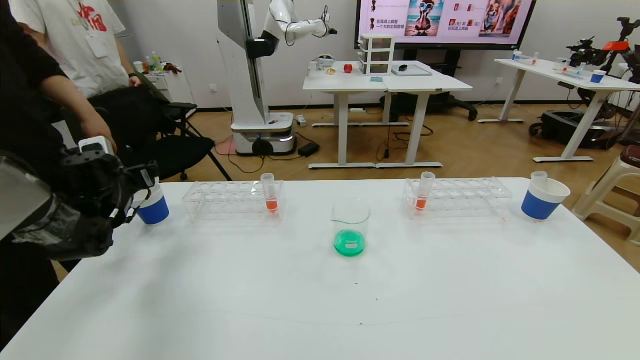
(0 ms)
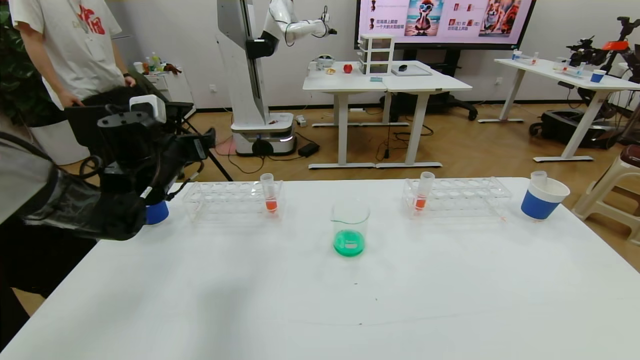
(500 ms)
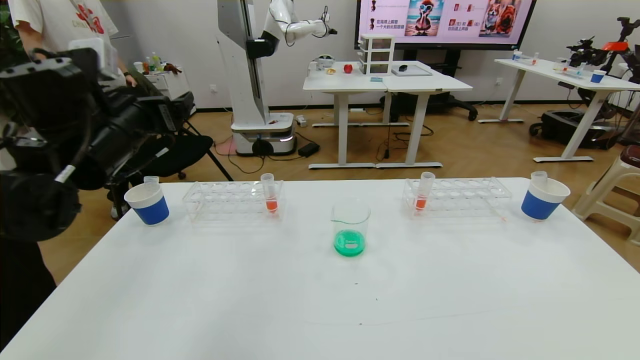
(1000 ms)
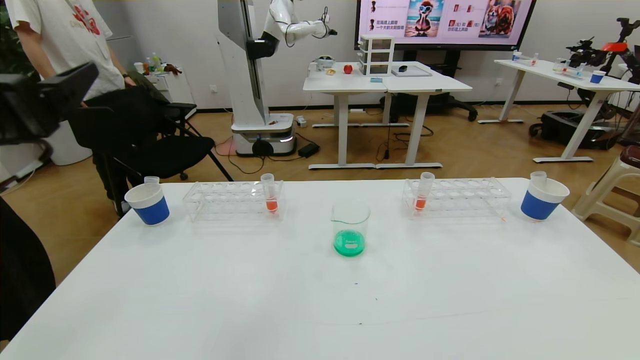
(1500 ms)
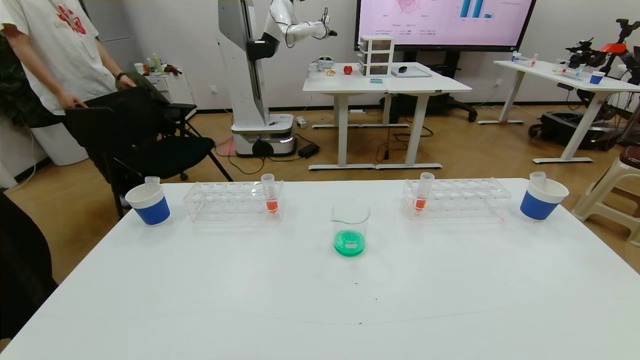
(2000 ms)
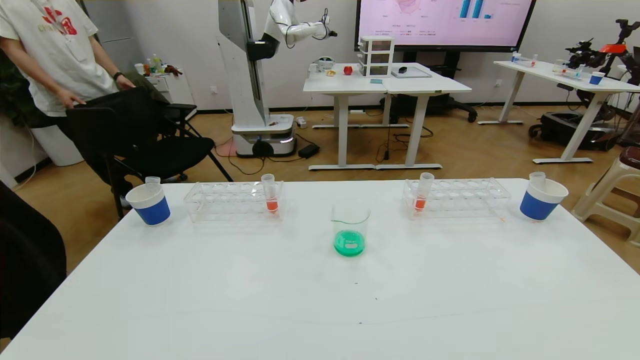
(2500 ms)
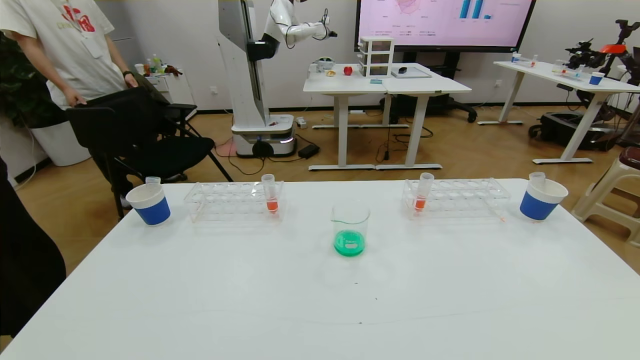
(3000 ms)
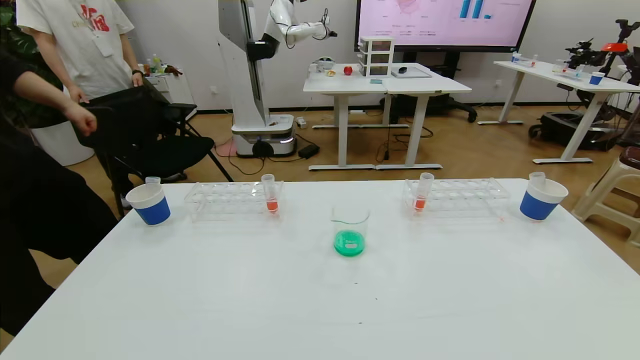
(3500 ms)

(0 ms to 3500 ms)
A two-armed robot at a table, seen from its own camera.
Task of the whole recording: pick up the test tube with yellow pigment and the test tube with blue pigment by grippers and pour them into the beaker.
Step, 0 ms - 3500 ms: Pour the blue reagent into the graduated cylinder and place the test tube into the paper cup.
0 ms - 2000 ms: The left gripper goes about 40 cm backward and upward.
2000 ms - 3500 ms: The left gripper shifts some 20 cm downward.

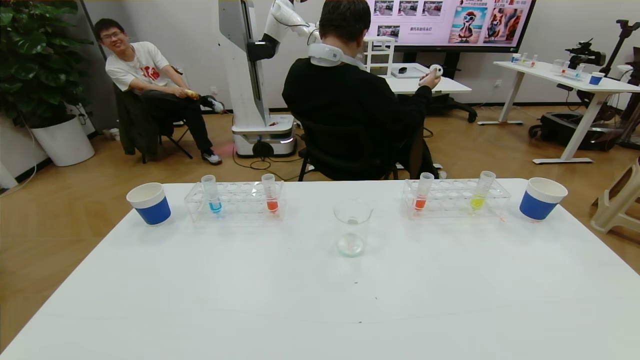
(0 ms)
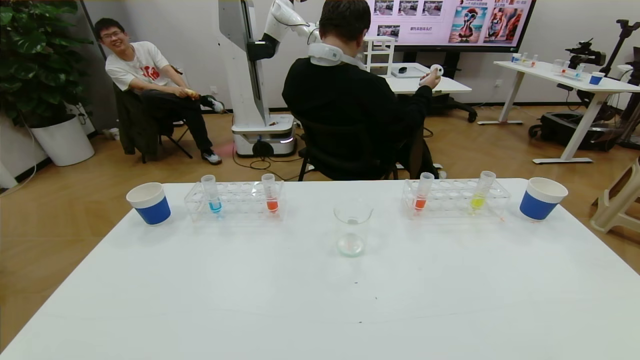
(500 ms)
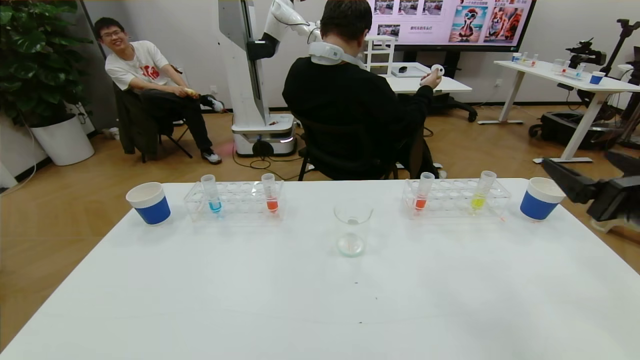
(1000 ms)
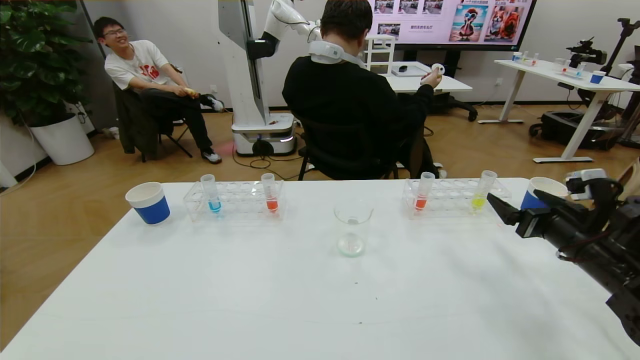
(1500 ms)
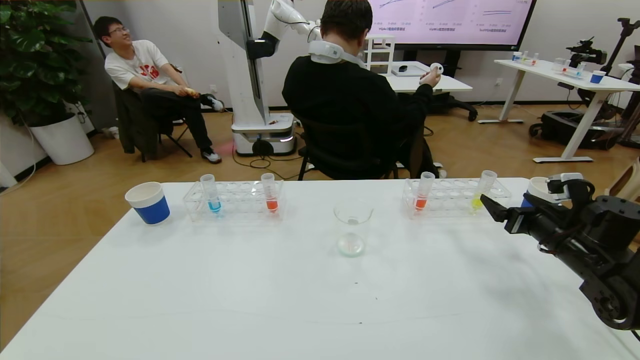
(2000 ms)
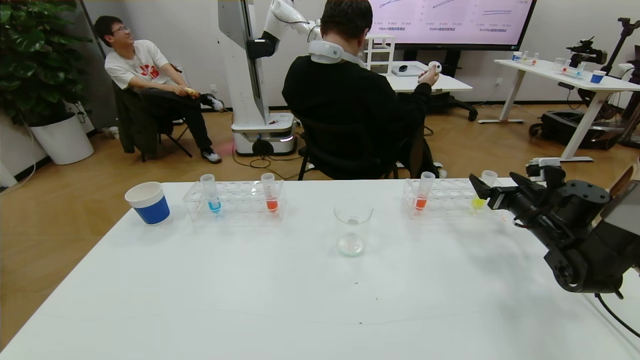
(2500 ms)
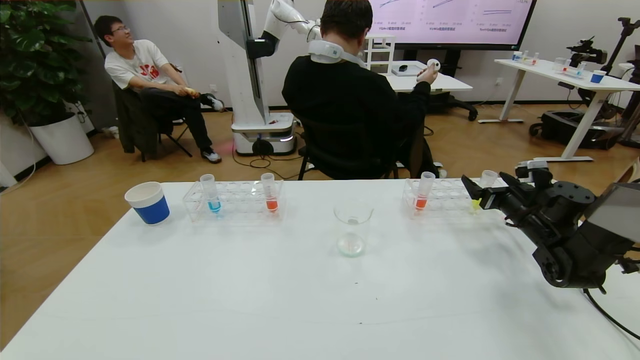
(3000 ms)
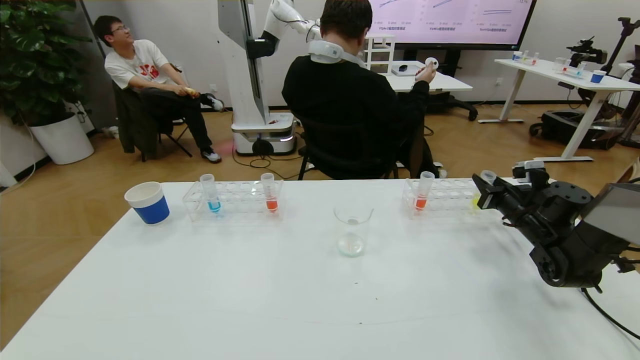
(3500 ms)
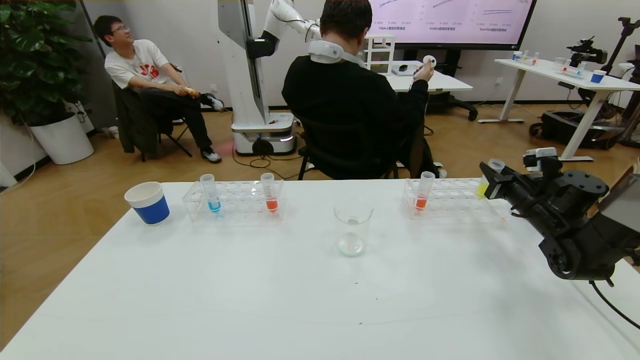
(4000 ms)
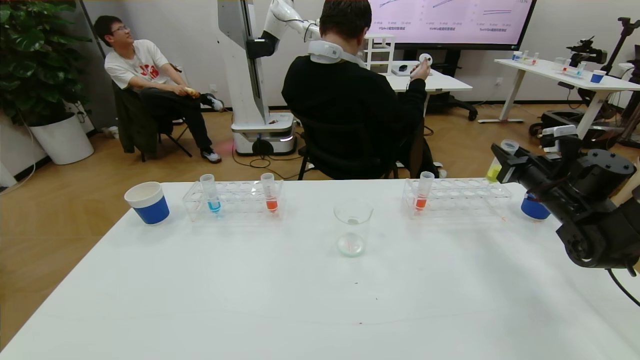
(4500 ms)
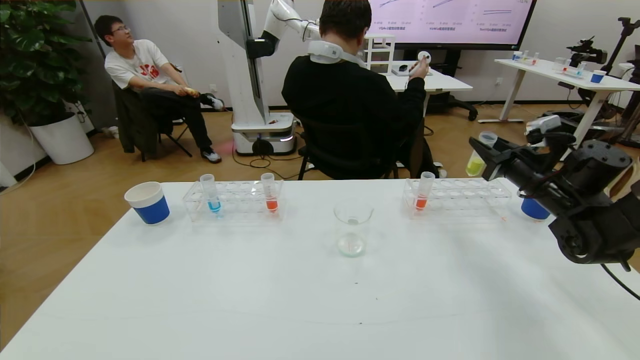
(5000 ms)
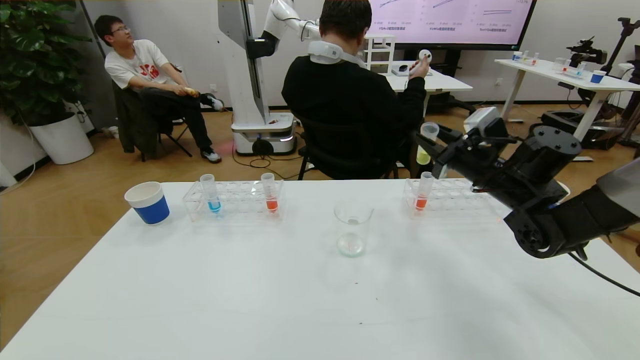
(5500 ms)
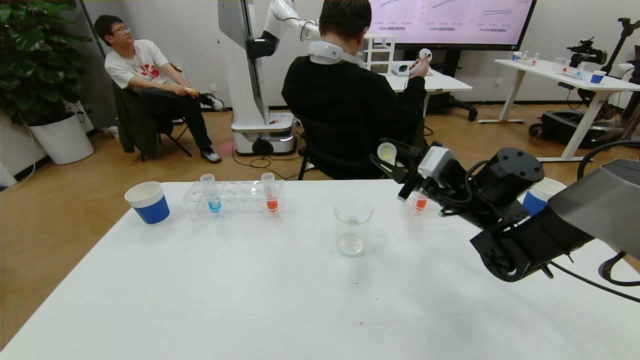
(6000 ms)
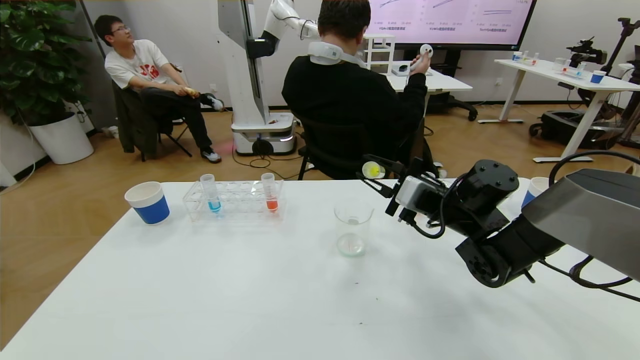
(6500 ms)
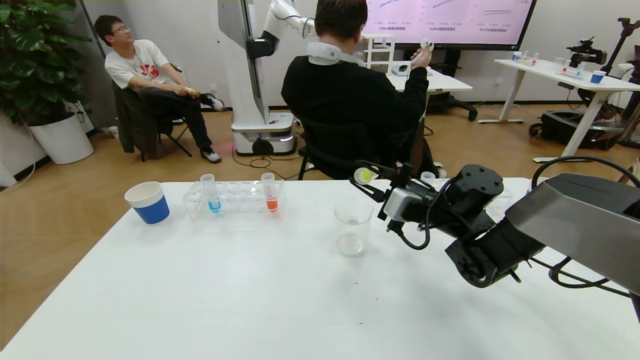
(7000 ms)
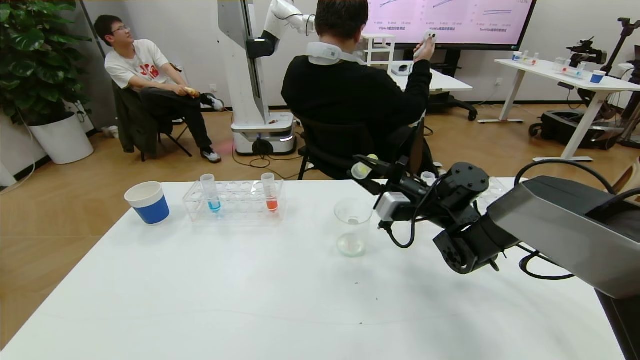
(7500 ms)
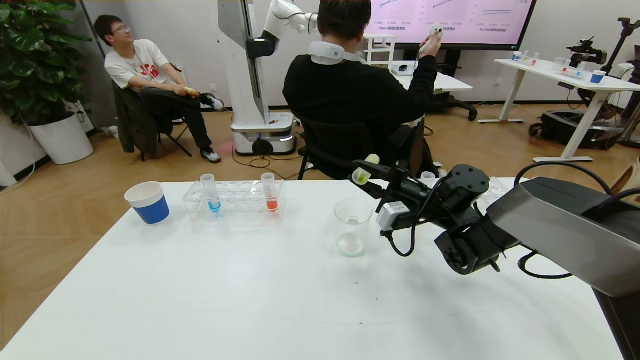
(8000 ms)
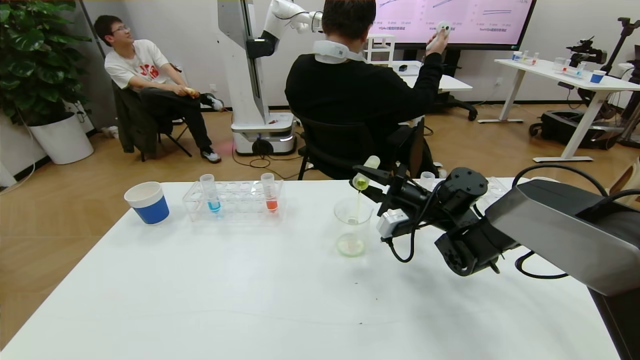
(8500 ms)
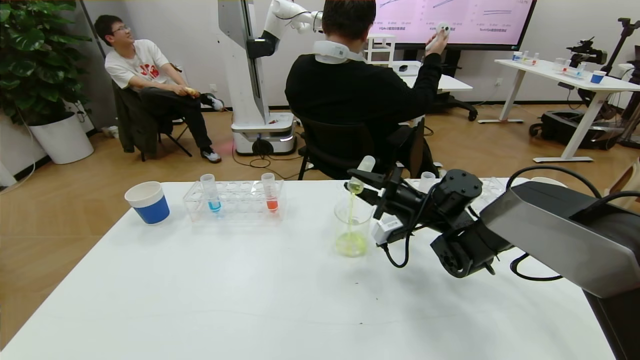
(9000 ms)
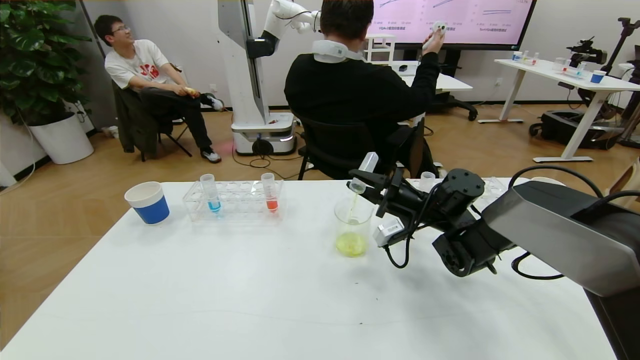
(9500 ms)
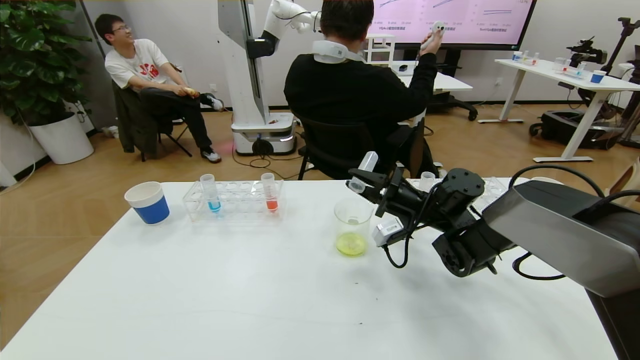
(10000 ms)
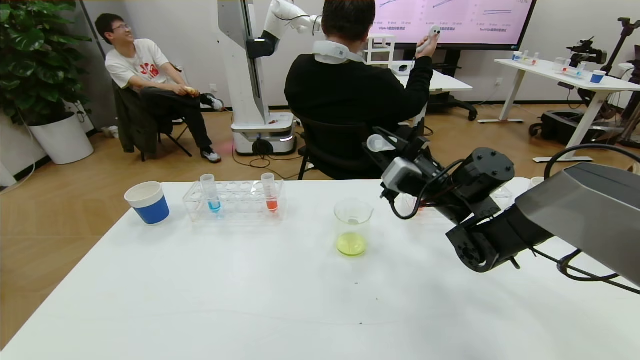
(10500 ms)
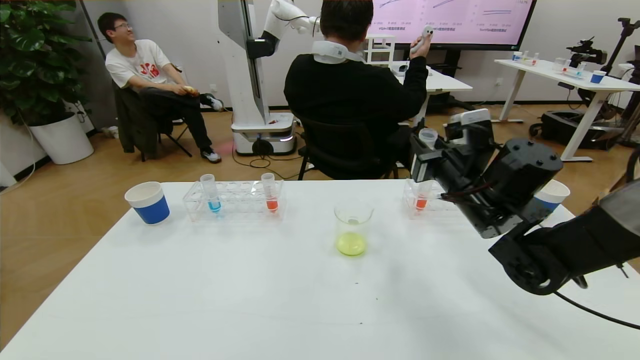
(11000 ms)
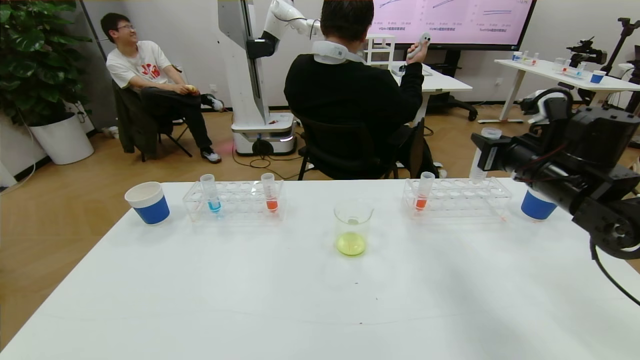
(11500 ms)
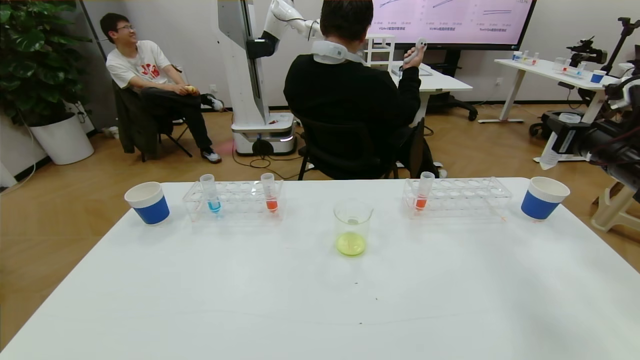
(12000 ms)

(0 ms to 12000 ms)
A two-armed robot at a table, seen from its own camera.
Task of the whole recording: pick up the test tube with yellow pigment and the test tube with blue pigment by grippers and pour them into the beaker.
Step, 0 ms - 3000 ms: Grasp the yellow reagent with the right gripper.
Step, 3500 ms - 10500 ms: Pour the yellow reagent into the graduated cylinder with the right gripper.
0 ms - 2000 ms: The right gripper is displaced forward by roughly 35 cm.
2000 ms - 4000 ms: The right gripper moves forward, roughly 10 cm, and closes its fingers.
4000 ms - 6000 ms: The right gripper travels to the left by approximately 20 cm.
6000 ms - 8000 ms: The right gripper goes about 5 cm downward.
8000 ms - 10000 ms: The grippers stay close to where they were, moving slightly.
10000 ms - 12000 ms: The right gripper moves to the right and upward, roughly 30 cm.

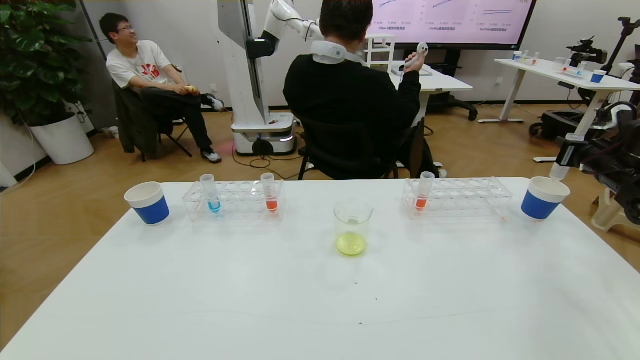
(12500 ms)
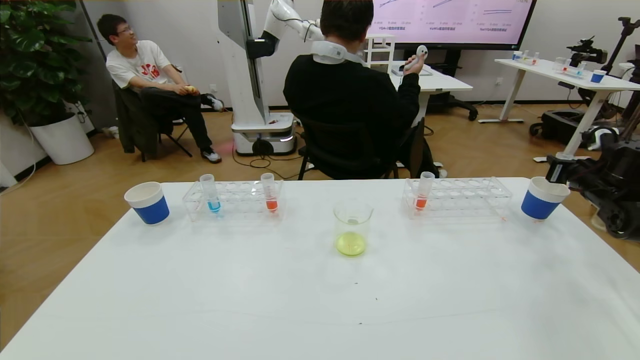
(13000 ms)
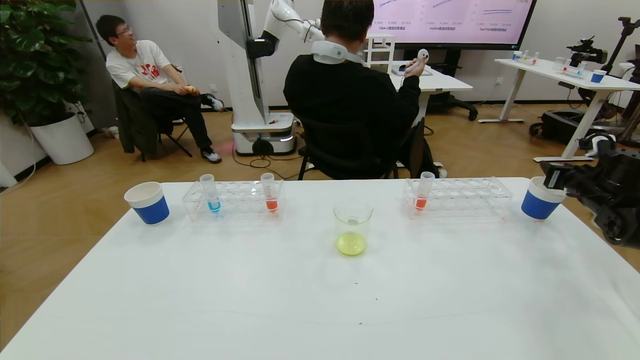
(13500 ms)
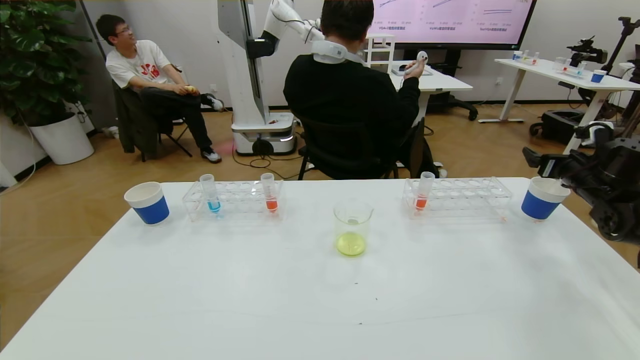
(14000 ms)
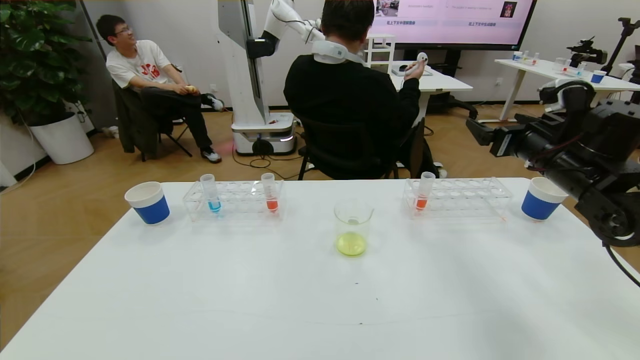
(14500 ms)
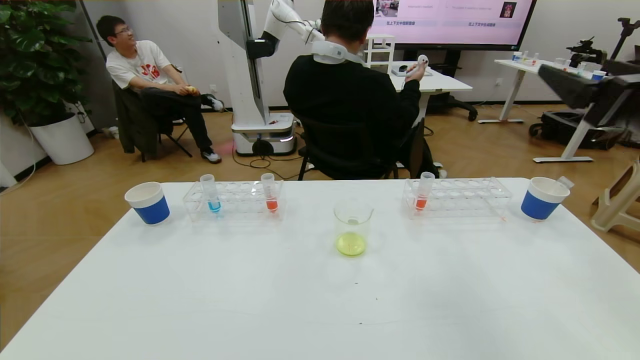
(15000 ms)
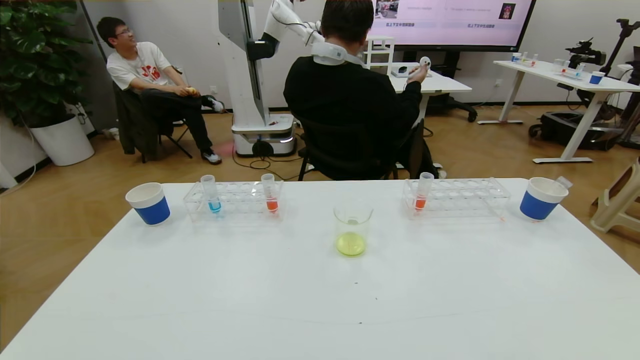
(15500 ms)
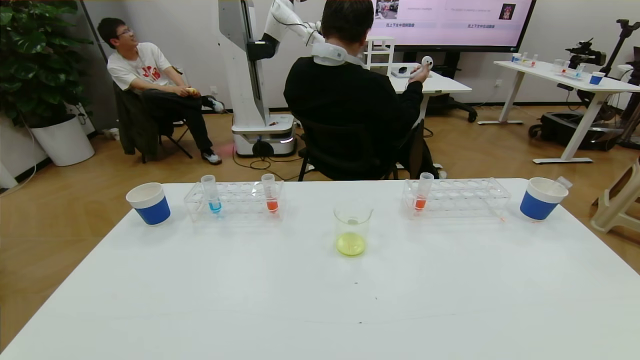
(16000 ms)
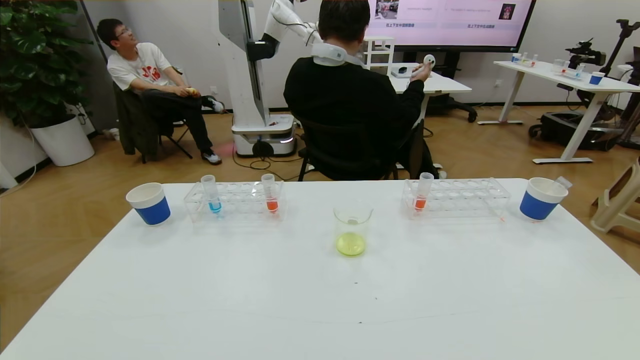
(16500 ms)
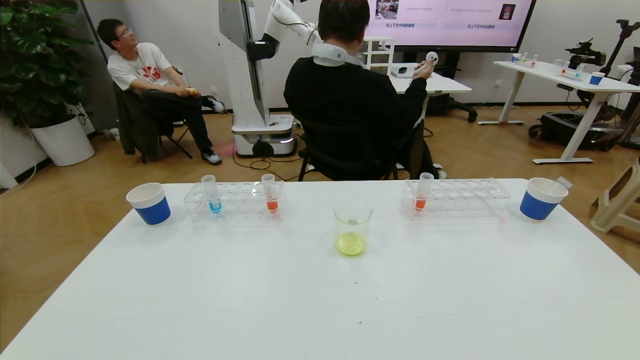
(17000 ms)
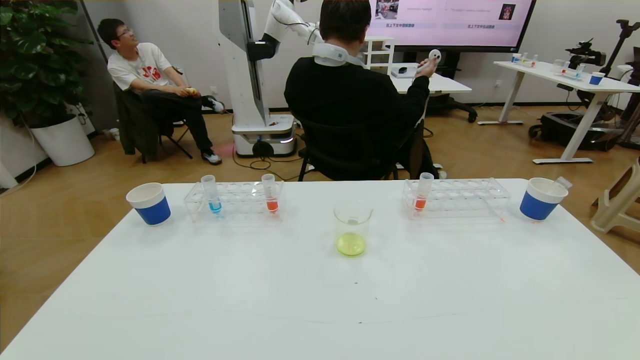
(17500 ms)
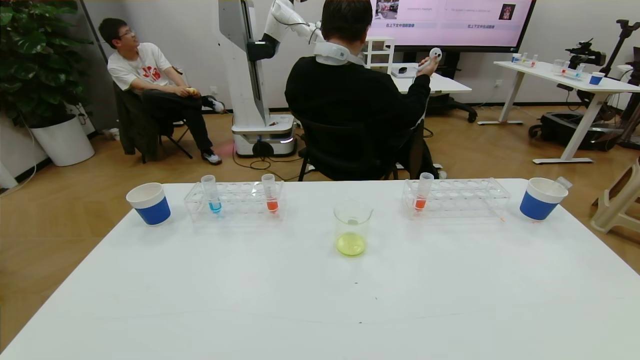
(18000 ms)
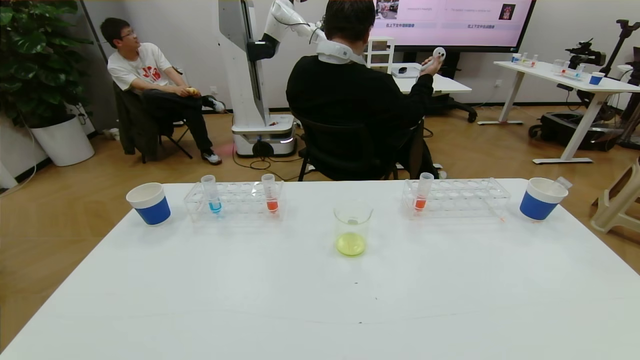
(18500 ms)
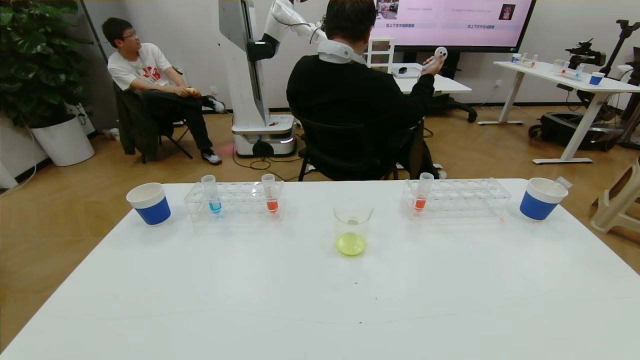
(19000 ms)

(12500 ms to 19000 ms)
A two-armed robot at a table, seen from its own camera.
Task of the whole recording: pick up the test tube with yellow pigment and the test tube with blue pigment by grippers and pour them into the beaker.
12500 ms - 14500 ms: The right gripper moves to the left, roughly 15 cm, and opens.
14500 ms - 17000 ms: The right gripper travels backward by some 40 cm.
17000 ms - 19000 ms: The left gripper heads upward, covering roughly 10 cm.
